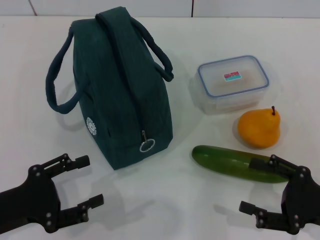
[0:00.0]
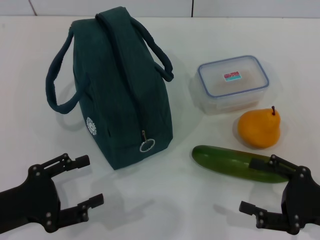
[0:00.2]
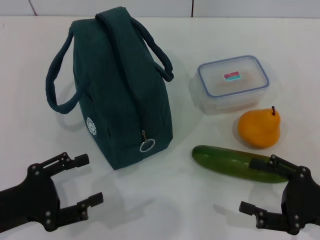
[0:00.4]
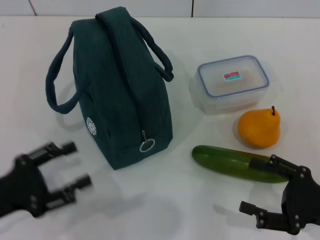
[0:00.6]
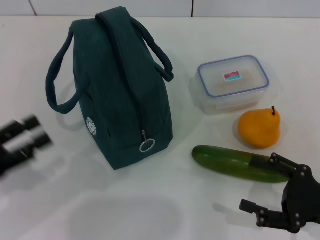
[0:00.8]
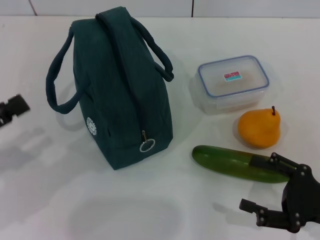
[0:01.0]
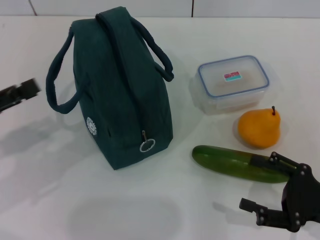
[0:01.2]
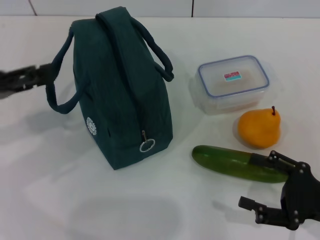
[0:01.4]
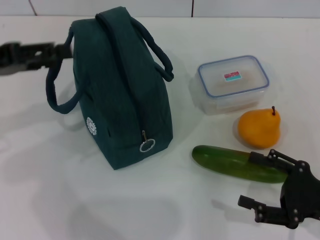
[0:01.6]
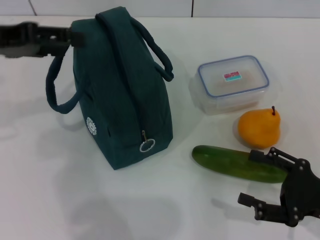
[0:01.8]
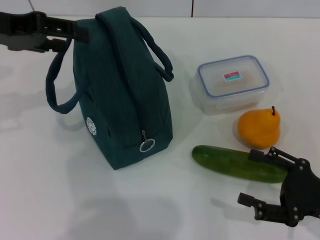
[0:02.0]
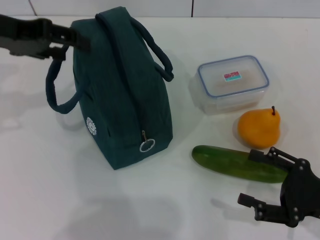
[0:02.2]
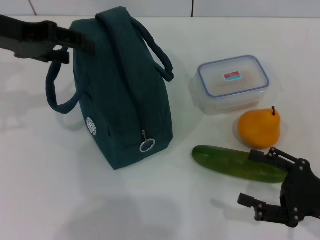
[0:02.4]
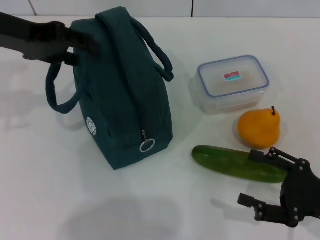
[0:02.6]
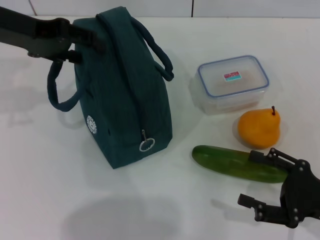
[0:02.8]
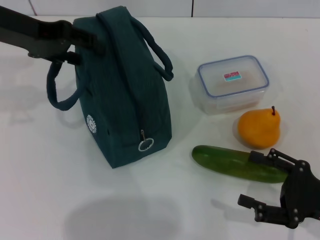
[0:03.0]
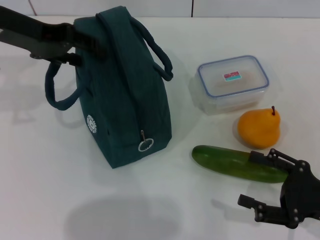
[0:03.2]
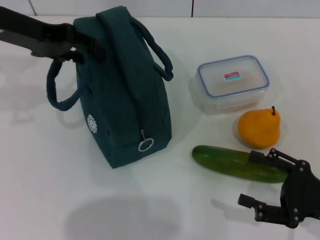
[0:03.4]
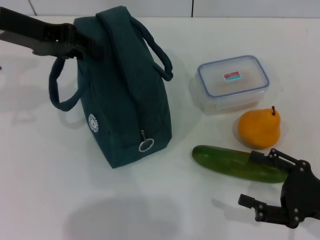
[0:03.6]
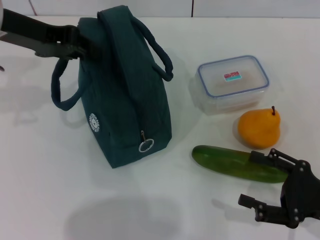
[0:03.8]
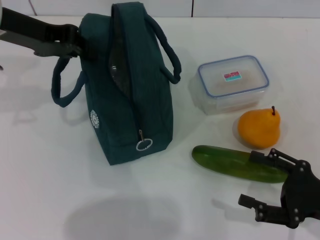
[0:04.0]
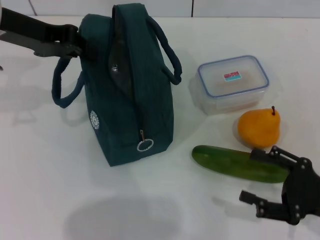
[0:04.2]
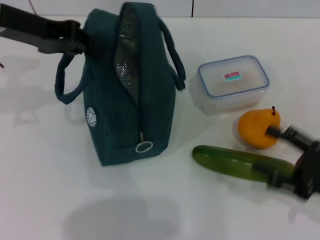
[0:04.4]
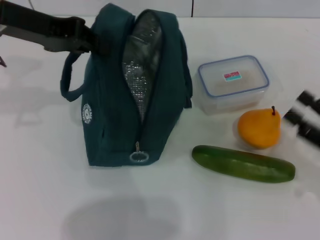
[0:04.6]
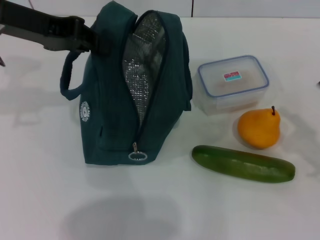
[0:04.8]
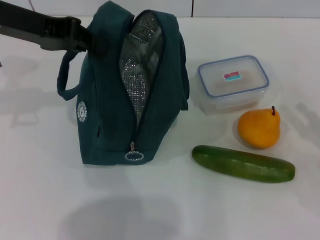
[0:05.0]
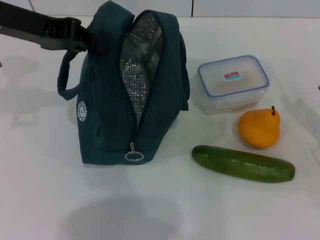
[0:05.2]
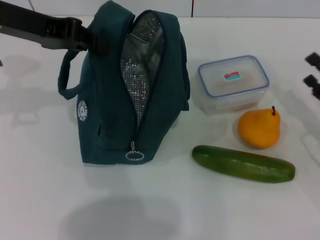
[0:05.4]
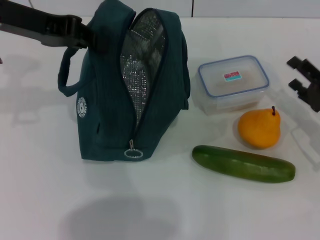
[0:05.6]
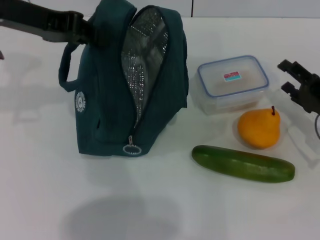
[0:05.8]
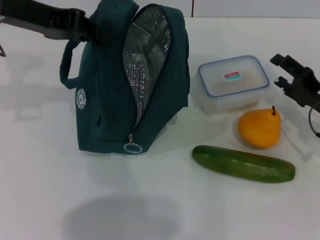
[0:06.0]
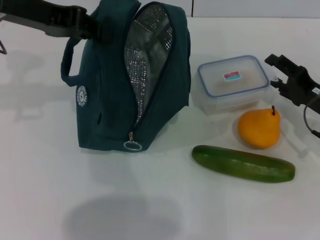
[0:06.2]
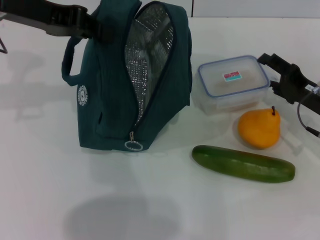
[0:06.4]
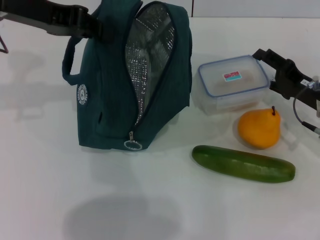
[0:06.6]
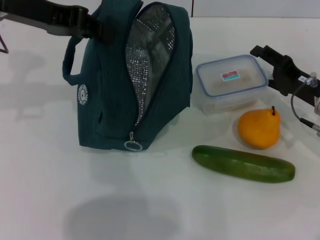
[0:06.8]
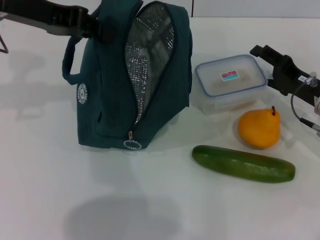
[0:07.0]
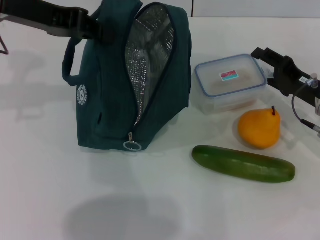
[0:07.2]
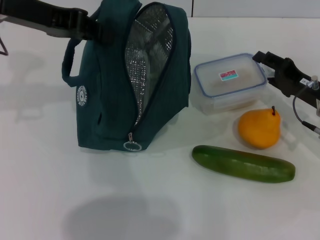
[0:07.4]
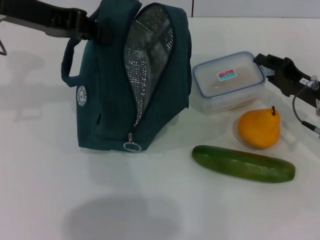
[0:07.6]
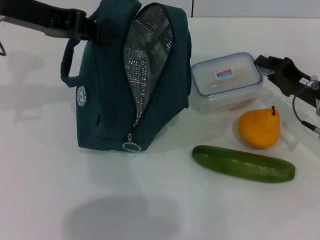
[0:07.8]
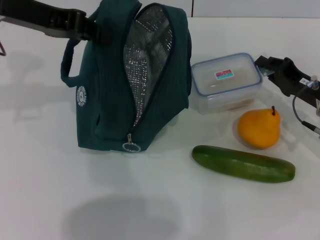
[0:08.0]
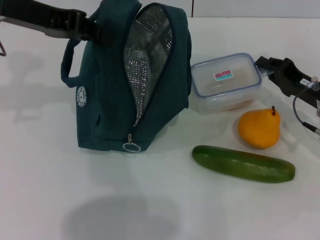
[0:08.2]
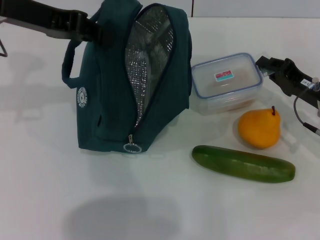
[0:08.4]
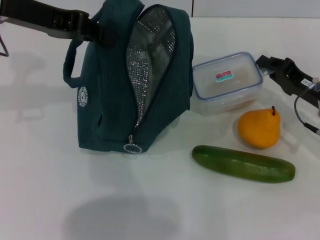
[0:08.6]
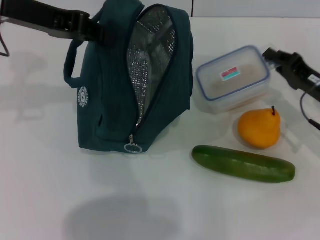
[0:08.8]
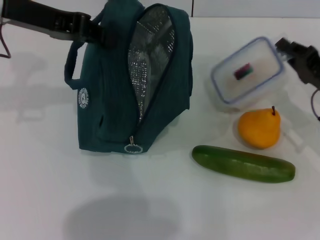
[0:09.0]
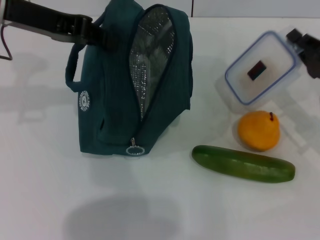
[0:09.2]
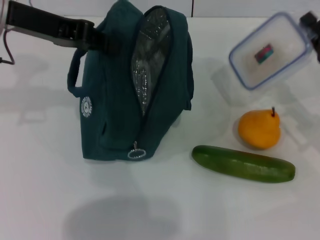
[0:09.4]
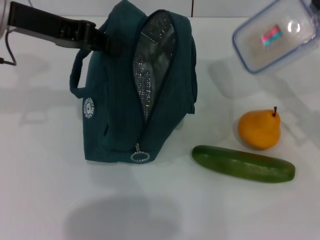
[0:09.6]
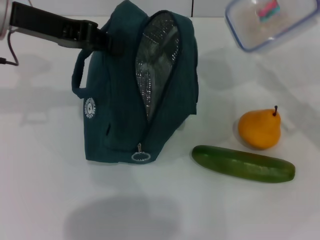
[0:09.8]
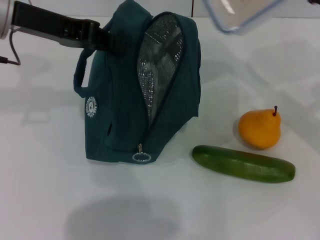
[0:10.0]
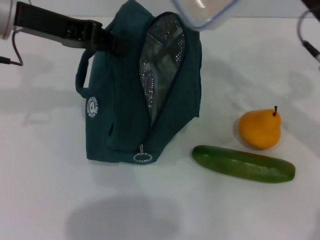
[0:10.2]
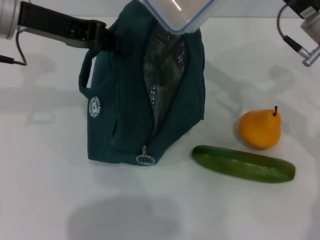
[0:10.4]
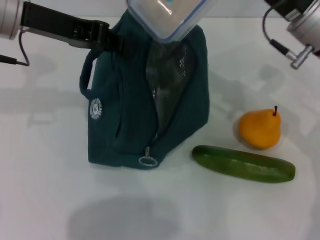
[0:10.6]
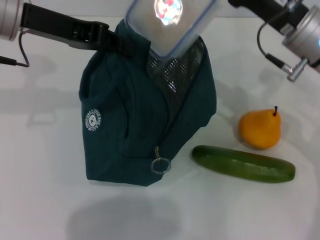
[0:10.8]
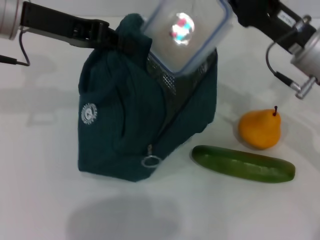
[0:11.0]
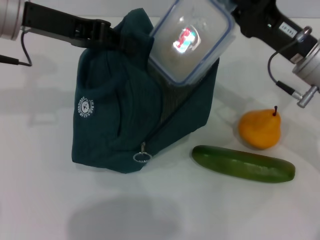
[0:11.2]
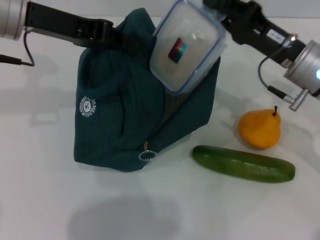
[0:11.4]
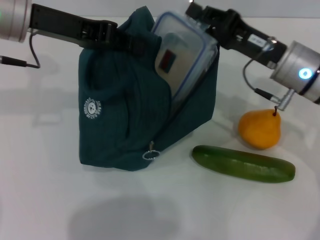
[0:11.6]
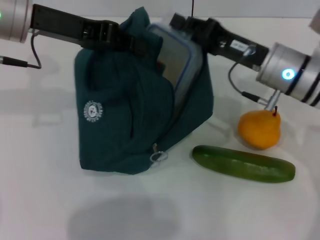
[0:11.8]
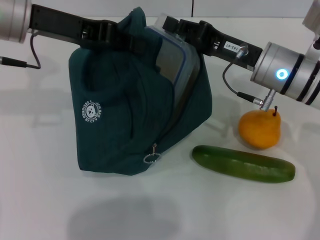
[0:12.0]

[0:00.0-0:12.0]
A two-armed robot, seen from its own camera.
Step, 0:00.0 to 0:04.0: Hold the lunch bag with your left hand.
Step, 0:04.2 to 0:08.4: Pick up the lunch box with your right hand.
0:00.0 to 0:01.6: The left gripper is displaced upward and forward by about 20 cm.
0:01.6 to 0:03.0: The left gripper goes approximately 10 cm forward and to the right.
0:03.0 to 0:04.4: The left gripper closes up.
0:04.4 to 0:06.0: The right gripper shifts roughly 10 cm forward.
0:06.0 to 0:07.6: The right gripper closes up.
0:07.6 to 0:09.0: The right gripper closes.
0:09.0 to 0:10.4: The right gripper goes roughly 15 cm upward and to the left.
0:10.4 to 0:12.0: The right gripper moves approximately 5 cm.

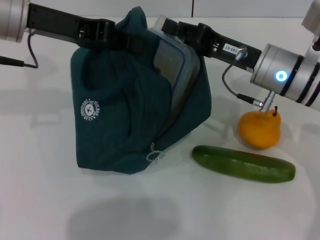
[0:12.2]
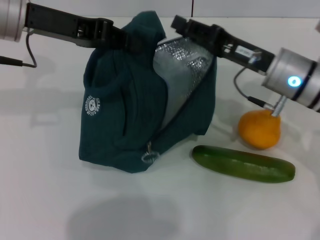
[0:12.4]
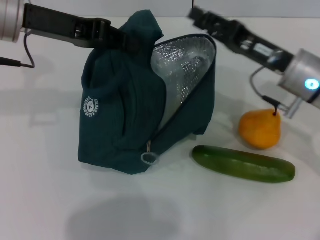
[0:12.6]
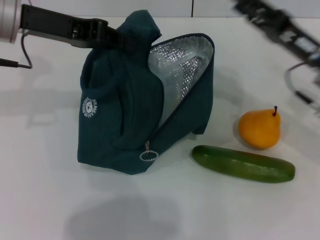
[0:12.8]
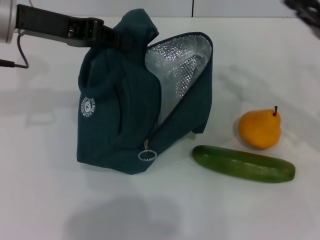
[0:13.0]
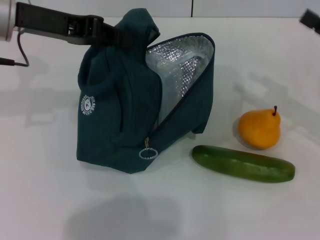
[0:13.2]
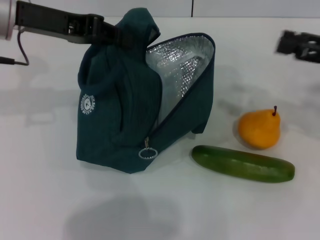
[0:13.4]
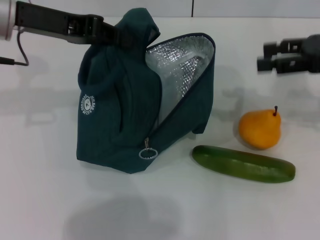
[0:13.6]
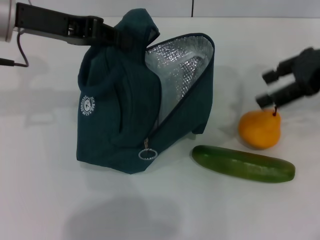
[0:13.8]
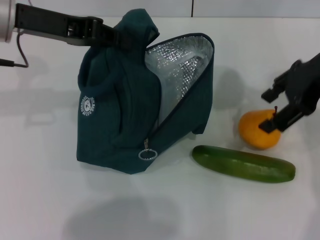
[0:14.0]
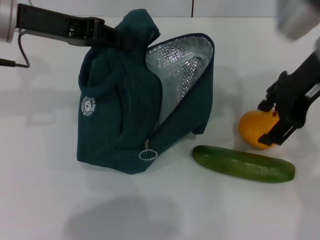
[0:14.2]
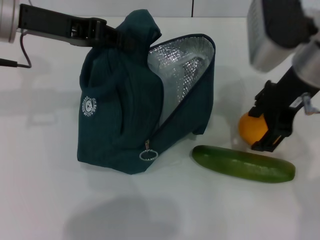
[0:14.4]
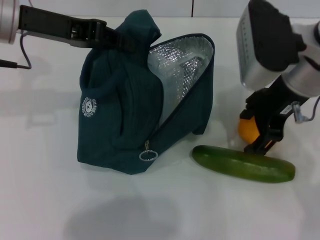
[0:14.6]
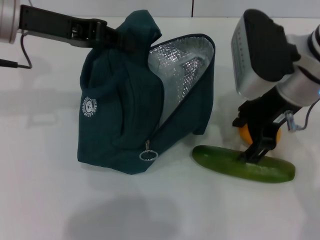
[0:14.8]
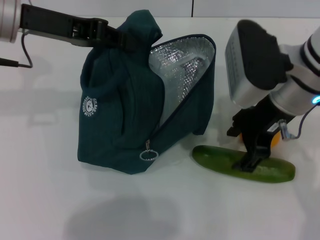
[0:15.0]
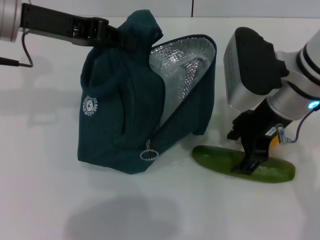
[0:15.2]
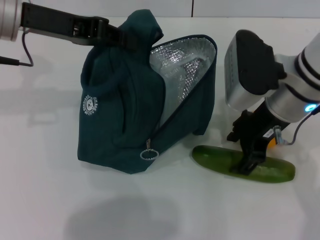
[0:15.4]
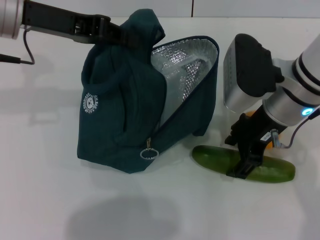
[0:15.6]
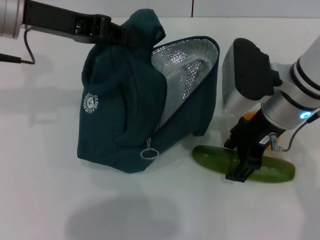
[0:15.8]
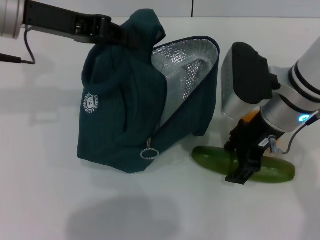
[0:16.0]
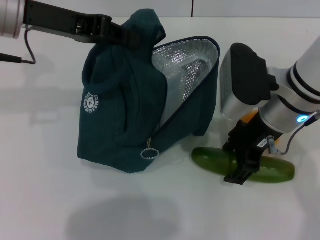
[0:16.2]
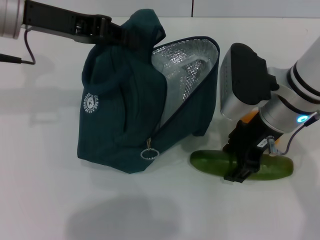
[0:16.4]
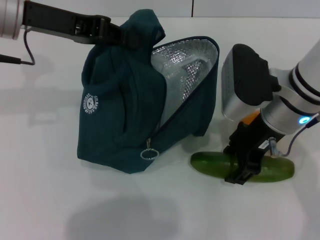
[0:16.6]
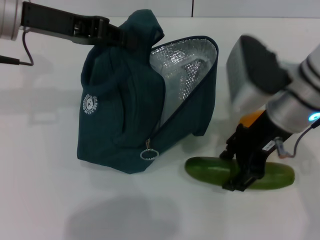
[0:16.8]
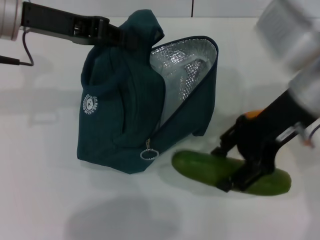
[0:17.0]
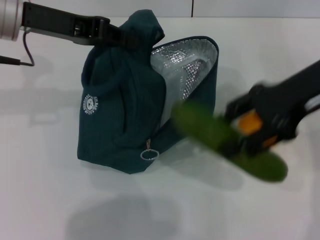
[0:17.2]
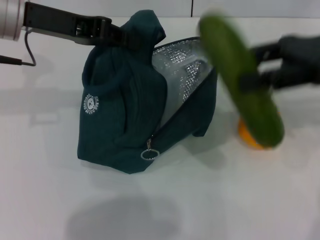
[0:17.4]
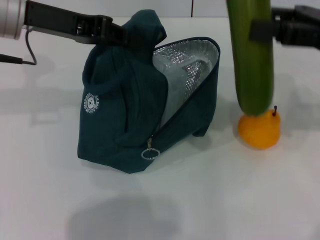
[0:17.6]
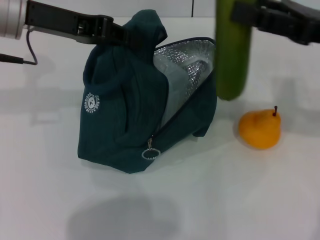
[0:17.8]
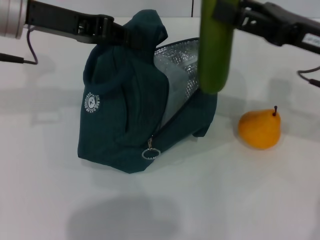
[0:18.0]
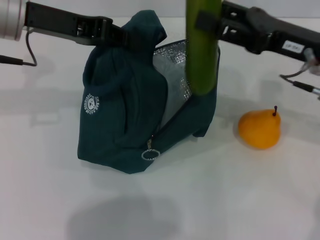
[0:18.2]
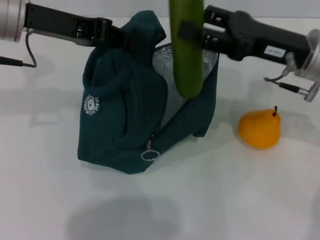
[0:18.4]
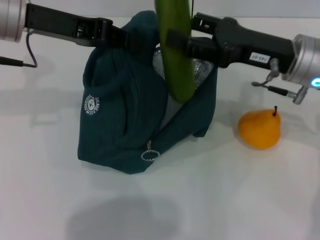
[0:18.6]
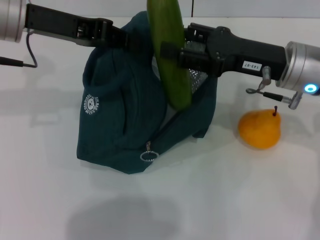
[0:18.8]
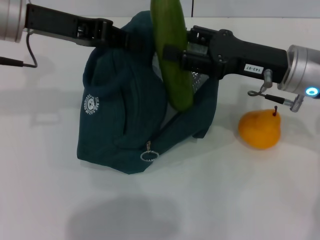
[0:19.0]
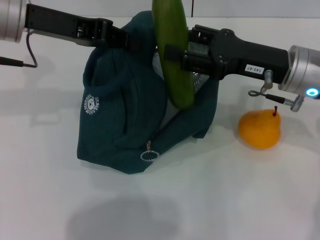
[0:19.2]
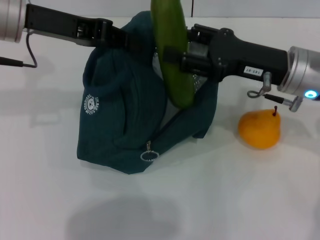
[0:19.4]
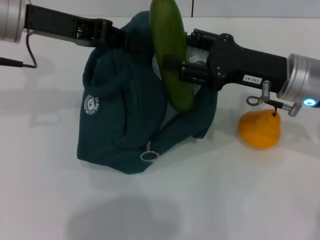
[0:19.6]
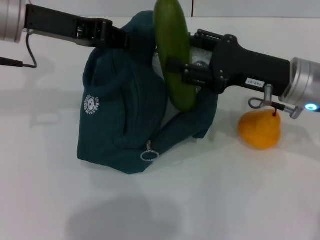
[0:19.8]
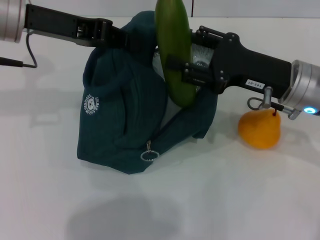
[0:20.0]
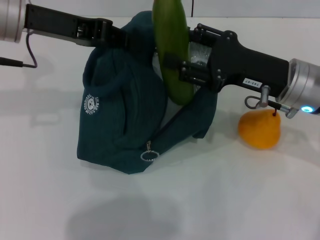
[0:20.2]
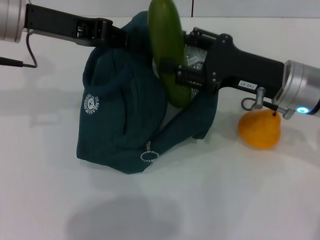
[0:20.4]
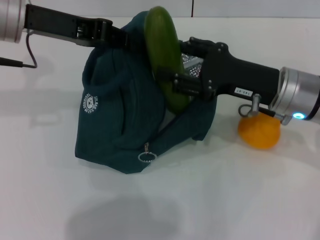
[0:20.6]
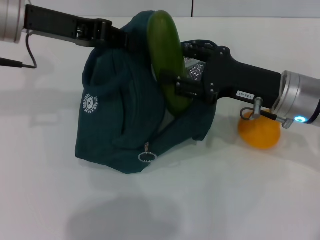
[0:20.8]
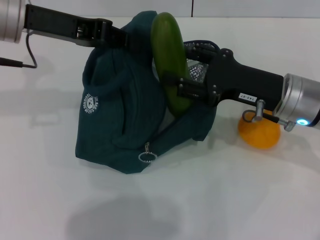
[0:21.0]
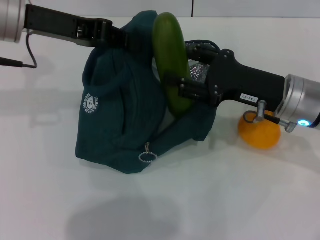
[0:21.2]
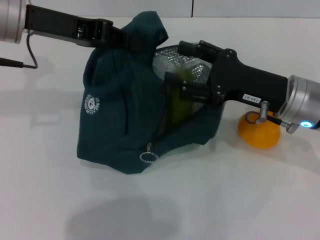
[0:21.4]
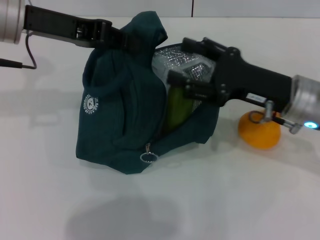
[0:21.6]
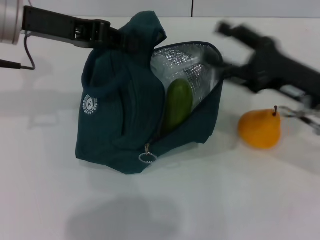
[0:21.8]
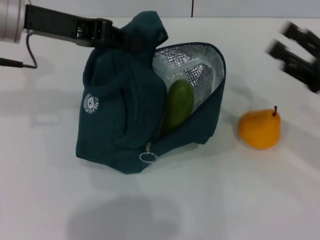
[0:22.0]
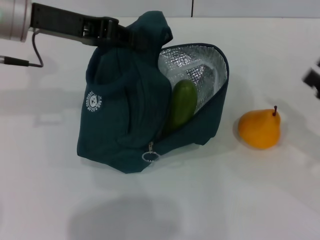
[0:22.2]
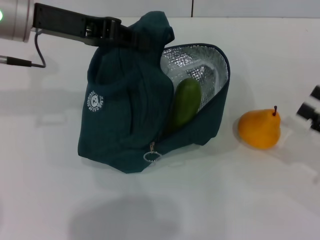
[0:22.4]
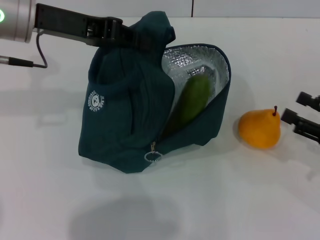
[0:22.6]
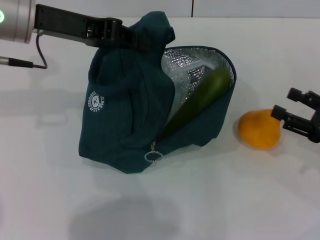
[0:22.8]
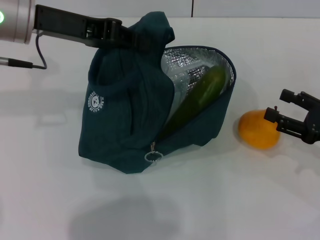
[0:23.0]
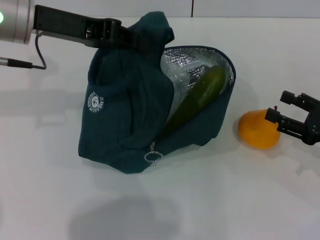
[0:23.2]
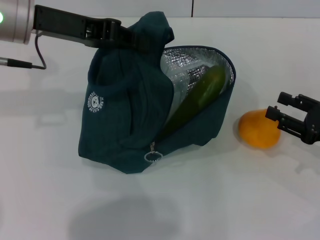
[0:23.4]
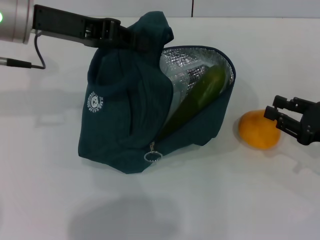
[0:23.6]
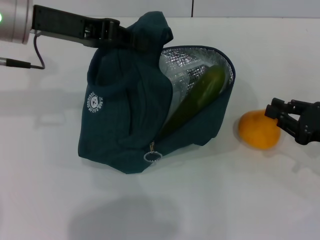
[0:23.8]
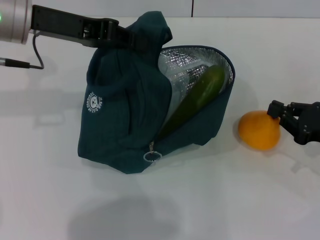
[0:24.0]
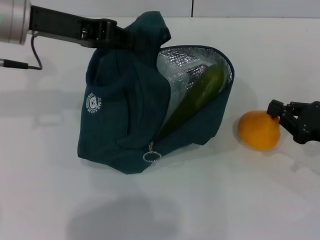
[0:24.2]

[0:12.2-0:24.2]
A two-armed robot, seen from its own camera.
Step, 0:12.6 to 0:16.4: Pick up the cucumber with your right hand.
Step, 0:16.6 to 0:21.4: Put the cucumber into the lunch bag with your right hand.
0:12.2 to 0:13.8: The right gripper heads upward and to the right, covering roughly 15 cm, and opens up.
0:13.8 to 0:15.2: The right gripper heads to the left and downward, covering about 15 cm.
0:15.2 to 0:16.6: The grippers move only a little.
0:16.6 to 0:18.2: The right gripper heads to the right, covering roughly 10 cm.
0:18.2 to 0:19.8: The grippers make only small movements.
0:19.8 to 0:21.2: The grippers stay close to where they were, moving slightly.
0:21.2 to 0:22.6: The right gripper goes about 15 cm to the right and backward.
0:22.6 to 0:24.2: The right gripper closes.
